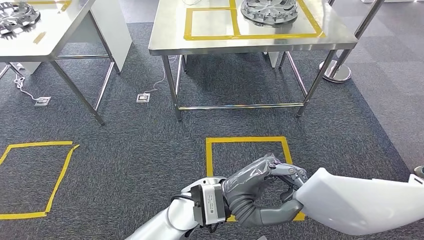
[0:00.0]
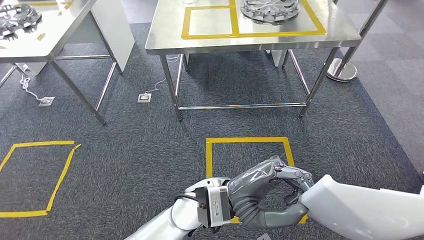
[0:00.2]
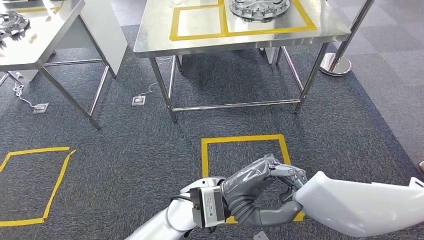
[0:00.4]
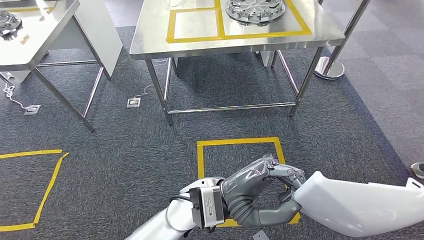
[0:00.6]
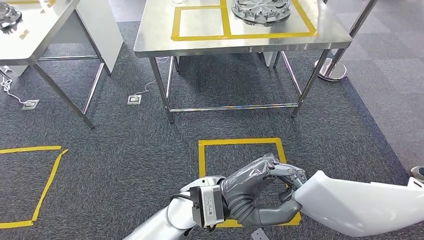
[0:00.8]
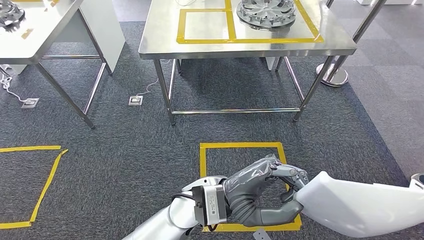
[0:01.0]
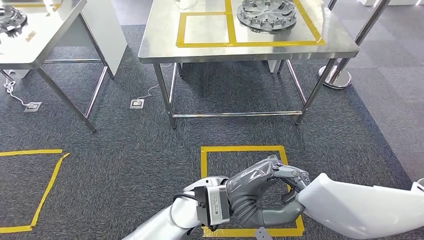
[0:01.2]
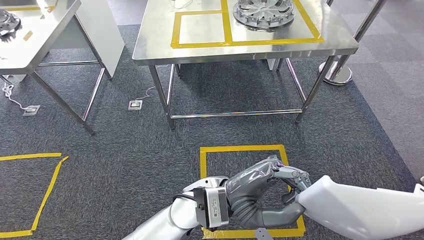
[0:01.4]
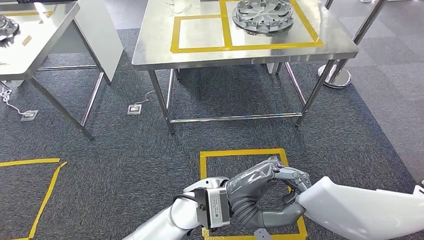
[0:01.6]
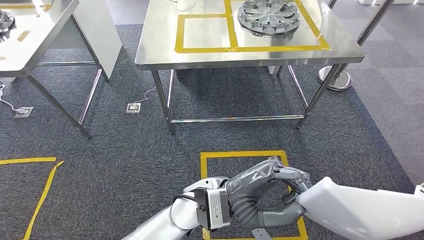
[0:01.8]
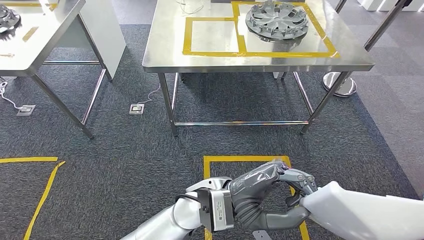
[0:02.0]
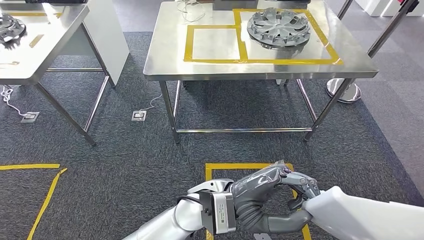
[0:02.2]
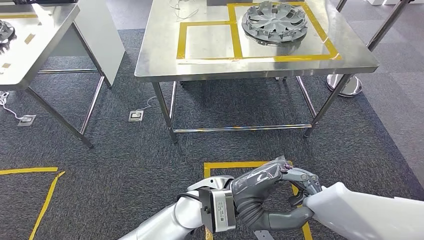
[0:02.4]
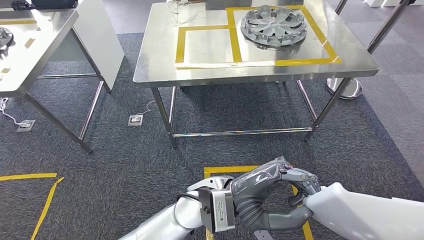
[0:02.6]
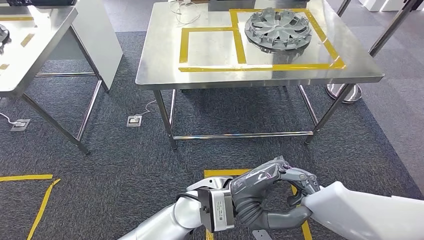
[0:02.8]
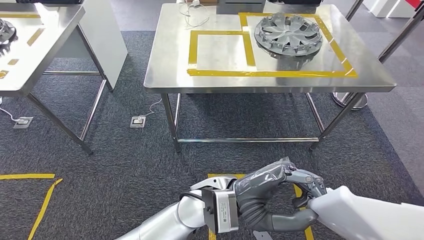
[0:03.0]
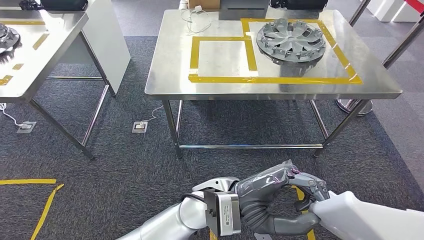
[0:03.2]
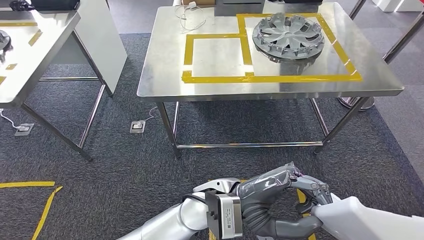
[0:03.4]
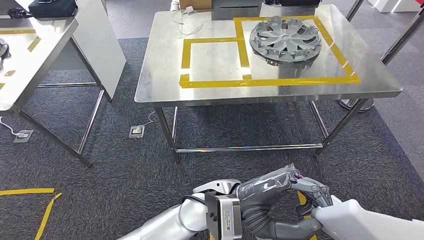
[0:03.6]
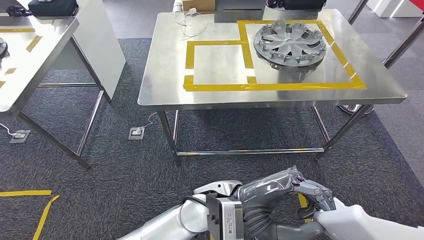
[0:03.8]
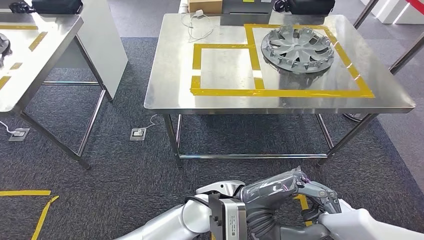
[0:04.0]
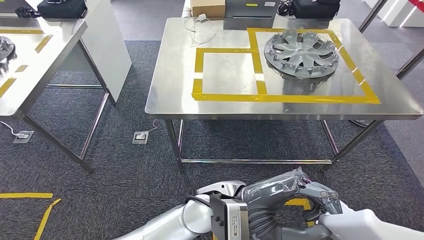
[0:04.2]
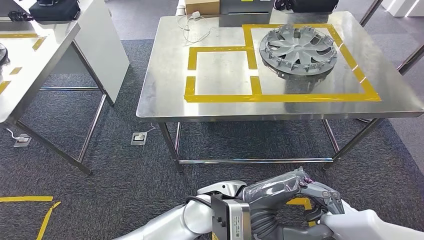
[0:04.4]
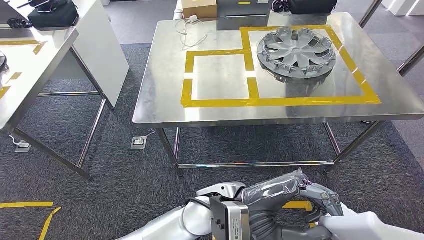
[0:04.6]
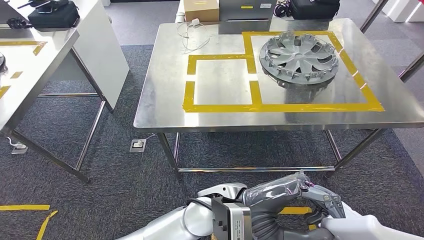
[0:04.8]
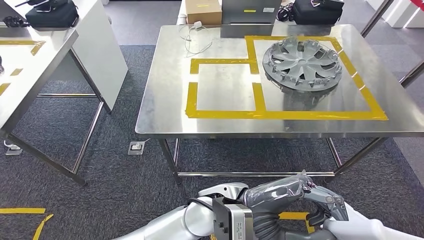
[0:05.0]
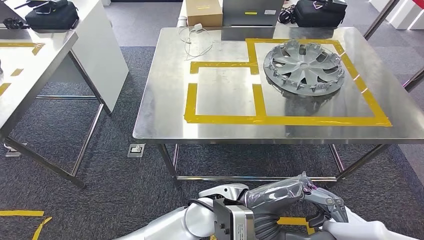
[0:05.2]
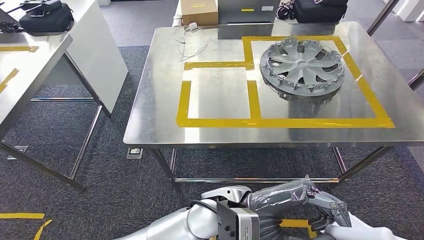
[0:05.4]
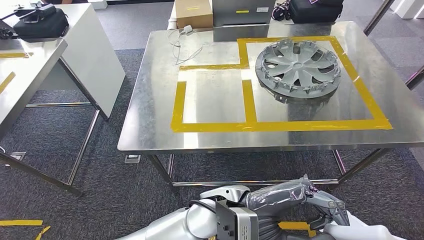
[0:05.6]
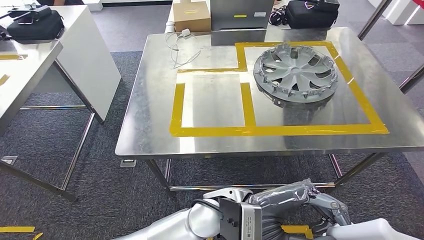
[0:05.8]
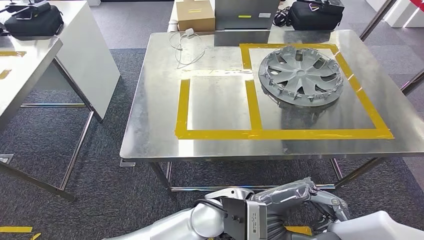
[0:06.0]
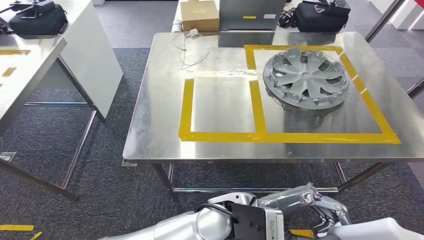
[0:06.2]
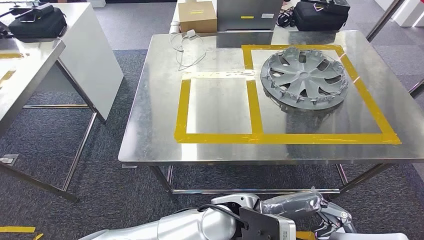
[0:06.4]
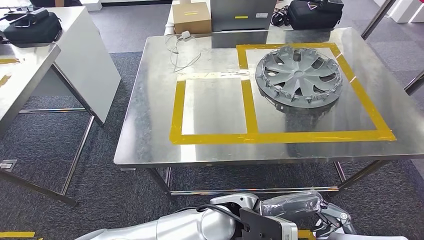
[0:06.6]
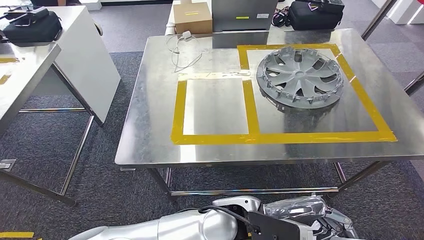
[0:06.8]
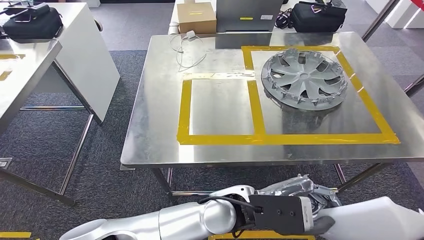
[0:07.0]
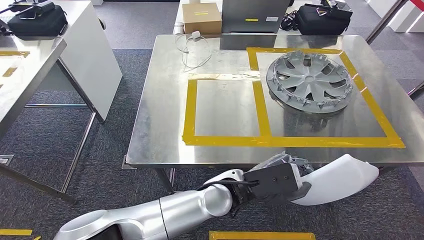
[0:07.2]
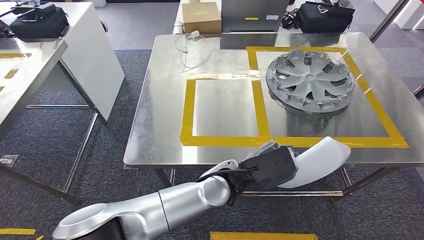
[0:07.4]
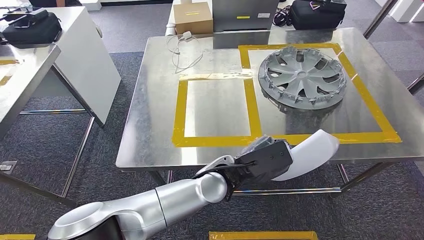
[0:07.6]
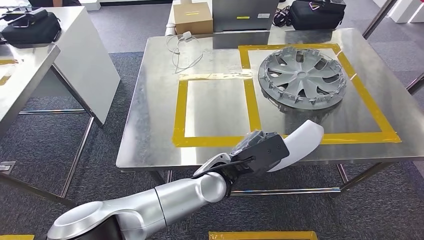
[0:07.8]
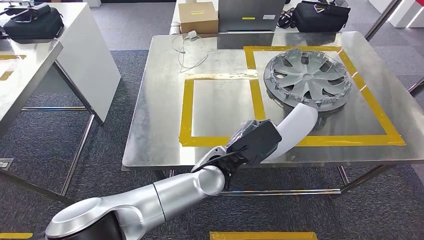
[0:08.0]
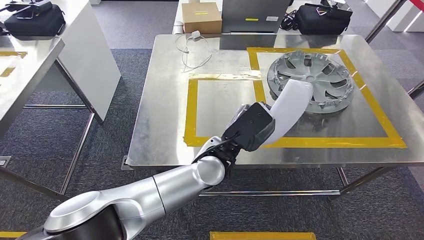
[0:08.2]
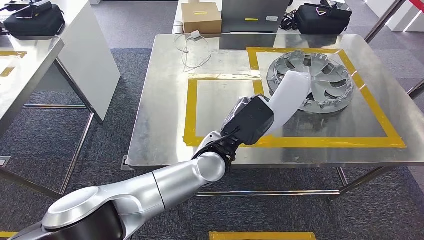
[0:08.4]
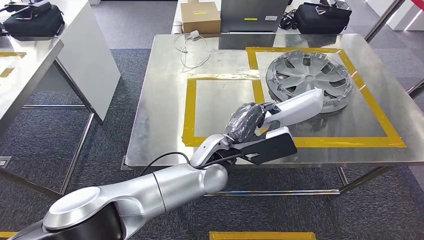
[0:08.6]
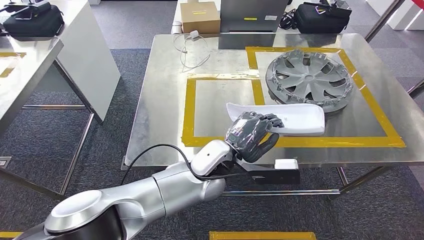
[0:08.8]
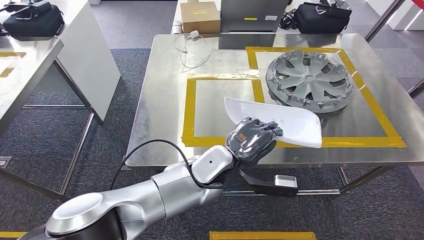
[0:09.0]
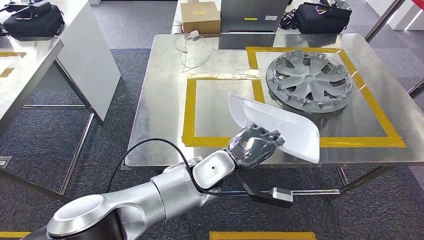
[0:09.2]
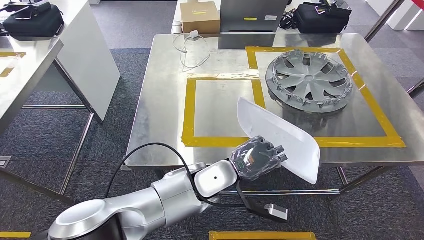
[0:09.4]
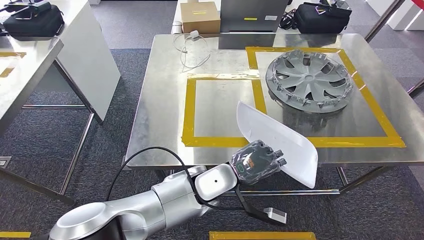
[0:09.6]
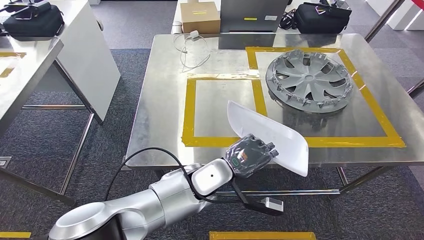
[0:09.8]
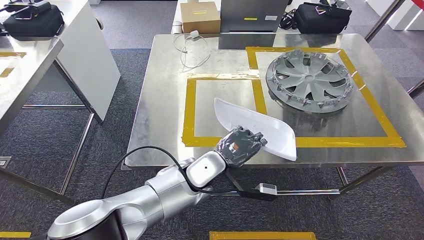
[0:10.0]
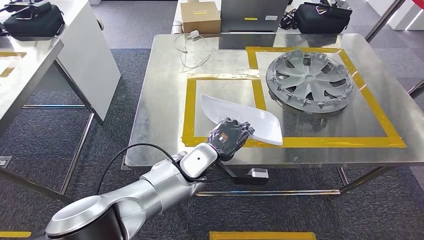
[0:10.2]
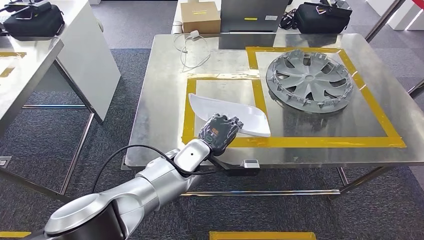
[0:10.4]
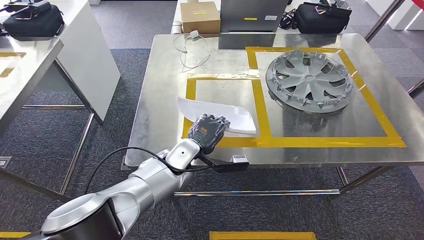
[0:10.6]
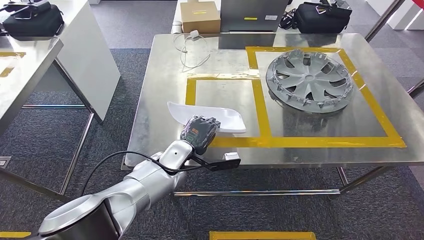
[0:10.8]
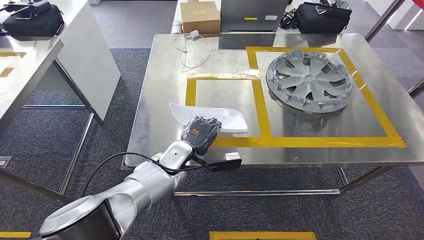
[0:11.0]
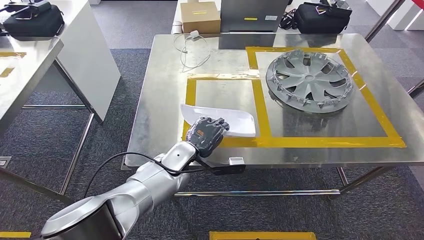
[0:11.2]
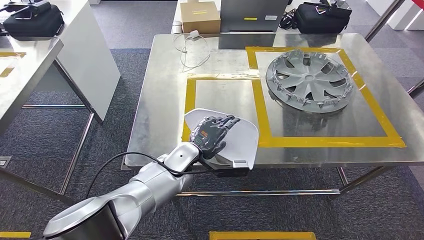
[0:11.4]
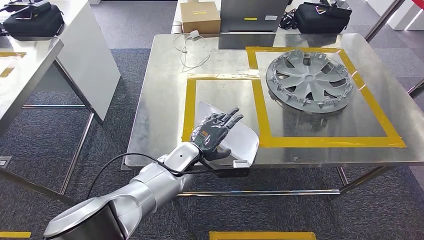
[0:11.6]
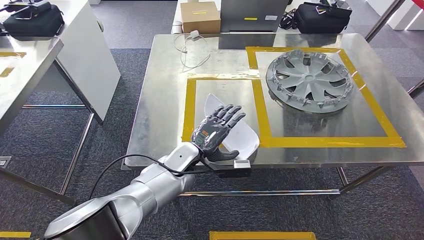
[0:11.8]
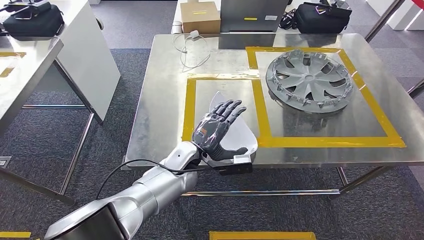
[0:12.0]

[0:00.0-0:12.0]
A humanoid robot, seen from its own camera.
Step, 0:00.0 to 0:07.8: Move the large material to the workbench.
0:09.0 to 0:10.4: The left hand travels to the left by roughly 5 cm.

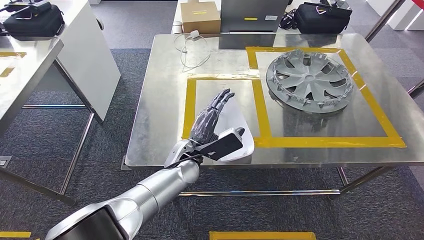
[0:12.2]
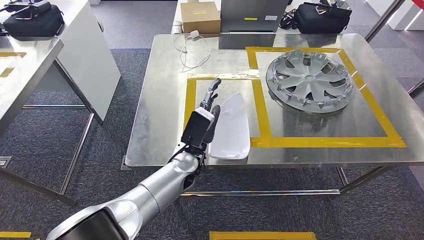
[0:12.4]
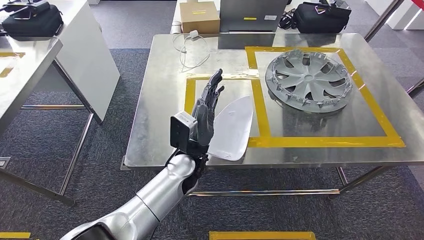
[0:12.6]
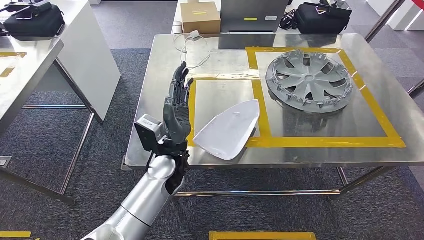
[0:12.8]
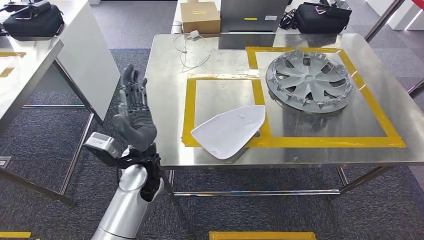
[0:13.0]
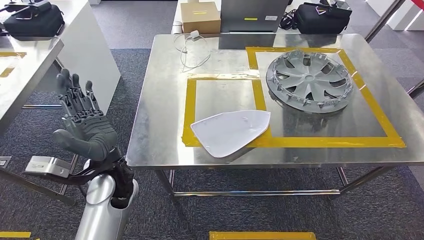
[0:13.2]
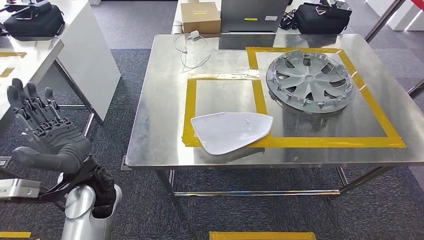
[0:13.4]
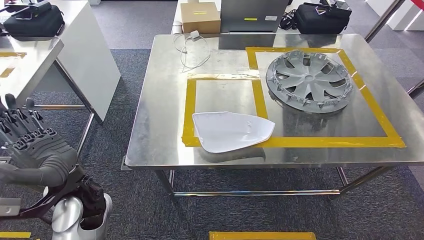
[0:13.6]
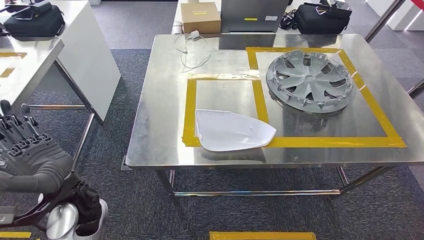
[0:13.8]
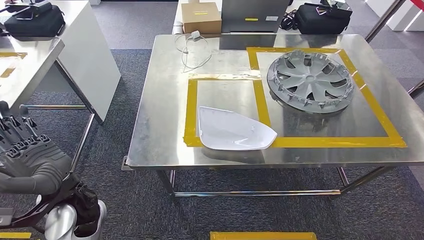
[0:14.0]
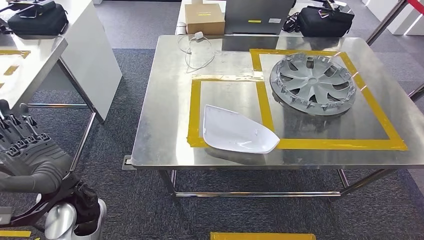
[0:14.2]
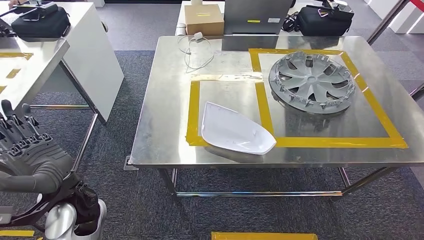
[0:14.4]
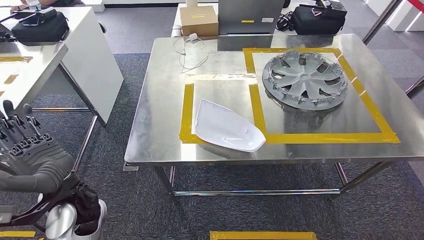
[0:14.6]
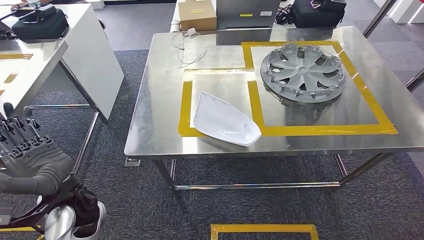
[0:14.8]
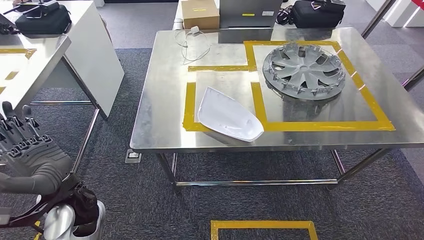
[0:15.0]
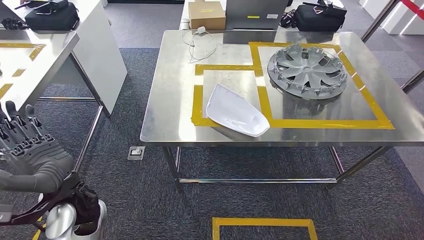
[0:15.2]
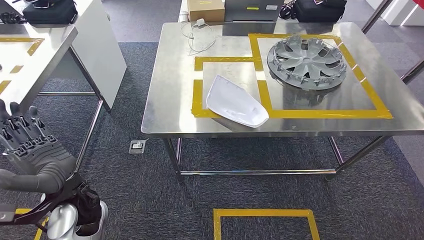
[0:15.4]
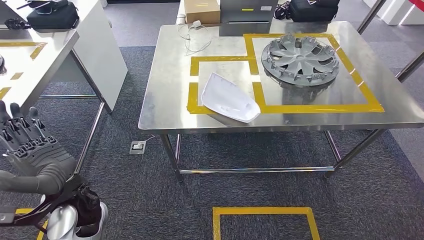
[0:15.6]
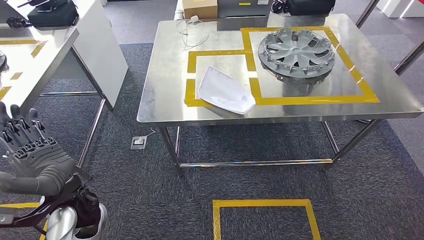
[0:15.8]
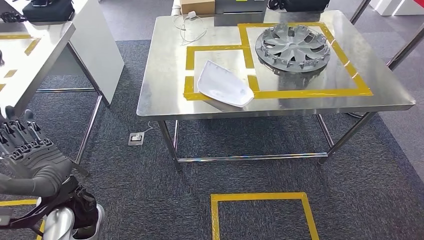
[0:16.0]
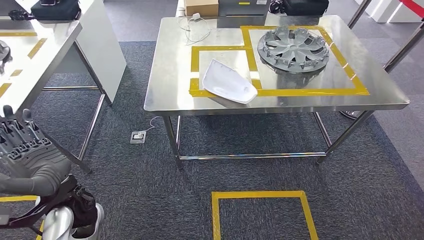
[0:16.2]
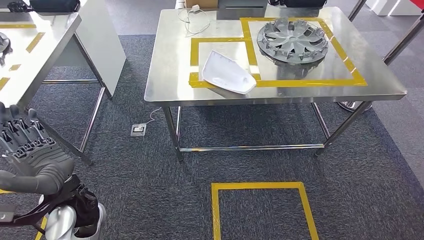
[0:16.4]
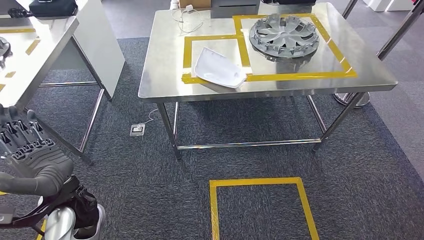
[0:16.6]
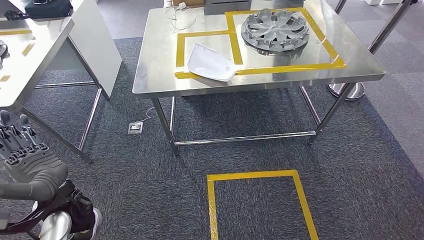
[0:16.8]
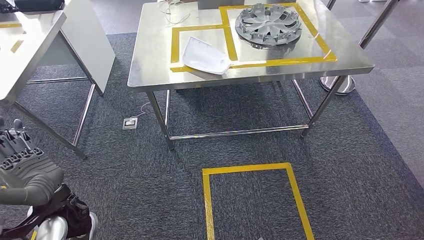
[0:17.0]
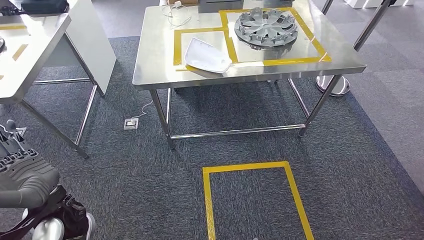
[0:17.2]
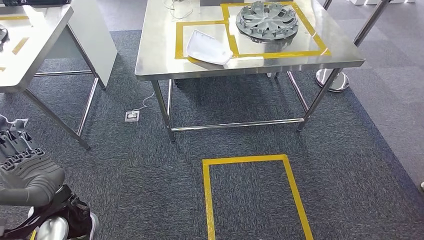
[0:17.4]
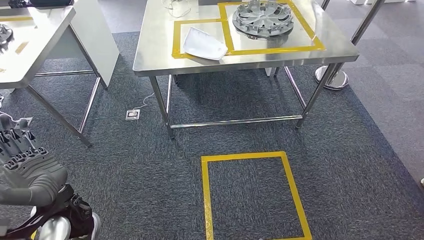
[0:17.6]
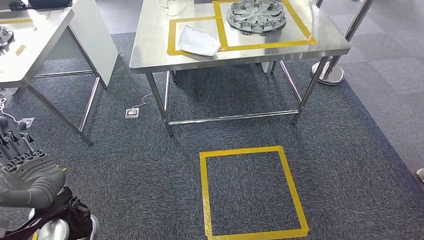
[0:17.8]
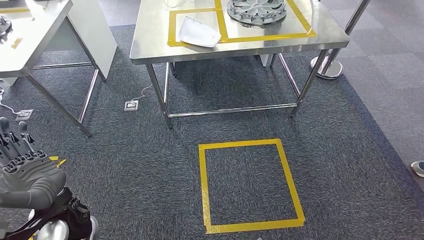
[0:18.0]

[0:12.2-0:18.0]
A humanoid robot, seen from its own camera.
0:12.2 to 0:13.6: The left hand goes approximately 20 cm to the left and backward.
